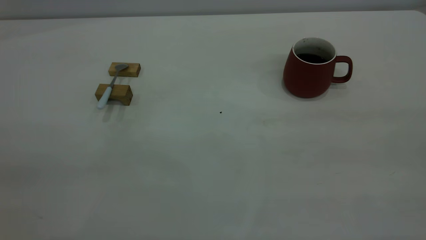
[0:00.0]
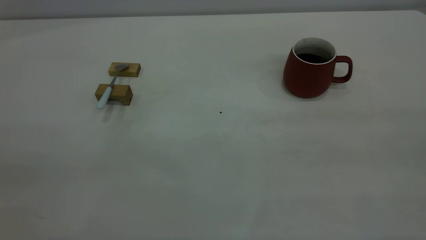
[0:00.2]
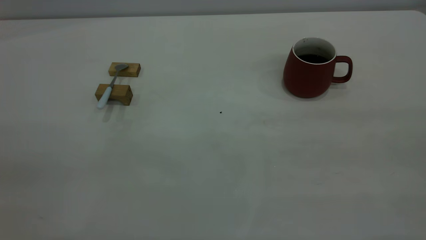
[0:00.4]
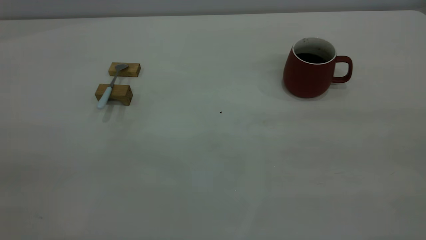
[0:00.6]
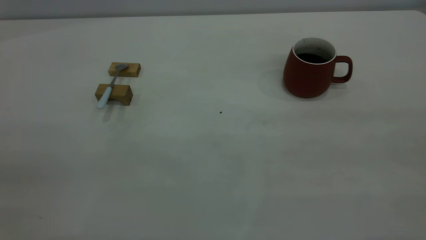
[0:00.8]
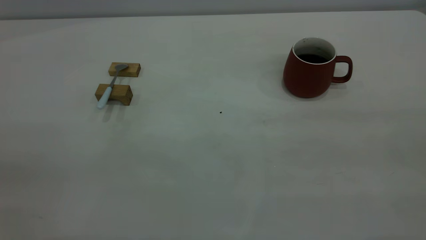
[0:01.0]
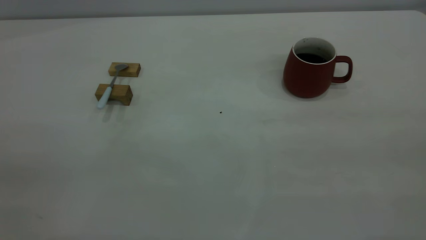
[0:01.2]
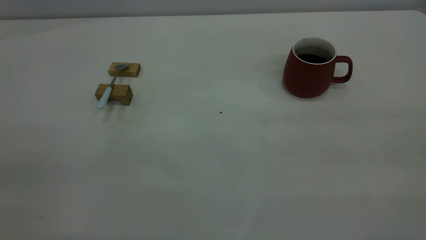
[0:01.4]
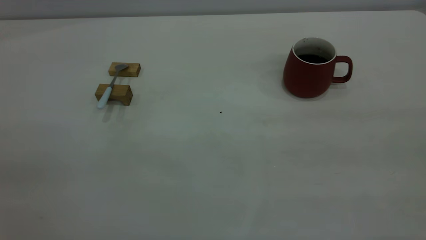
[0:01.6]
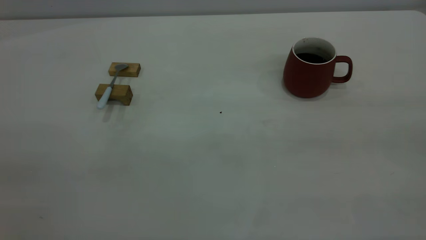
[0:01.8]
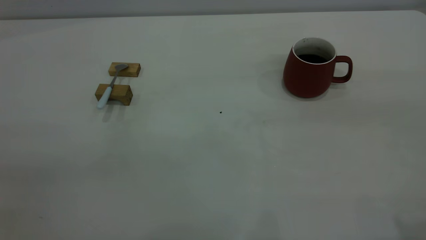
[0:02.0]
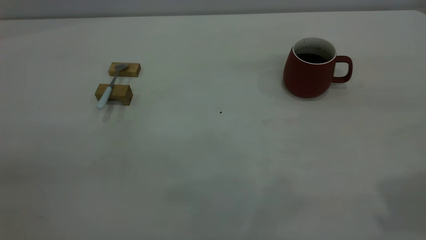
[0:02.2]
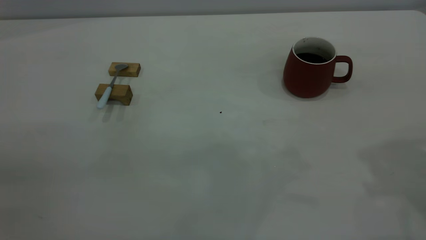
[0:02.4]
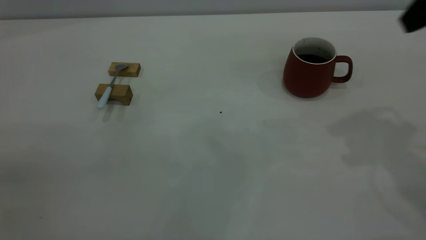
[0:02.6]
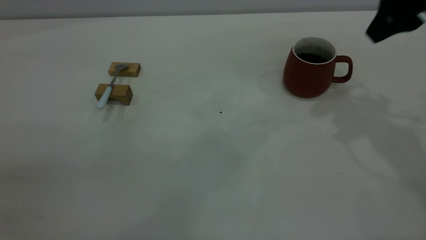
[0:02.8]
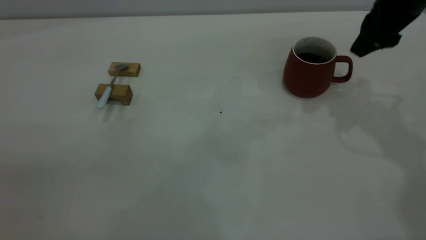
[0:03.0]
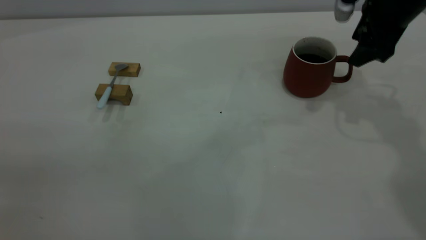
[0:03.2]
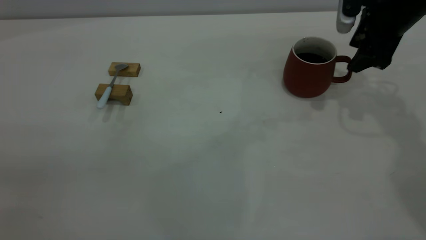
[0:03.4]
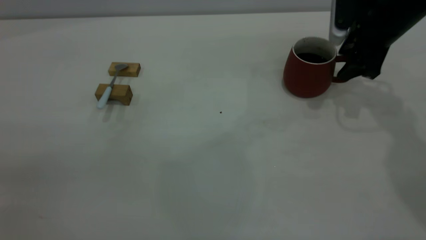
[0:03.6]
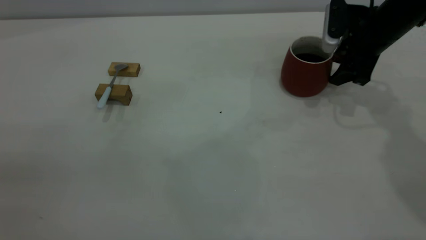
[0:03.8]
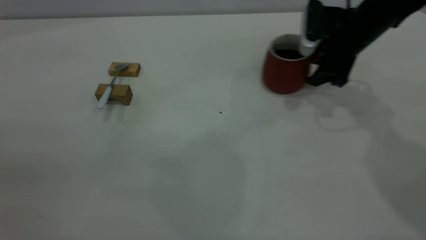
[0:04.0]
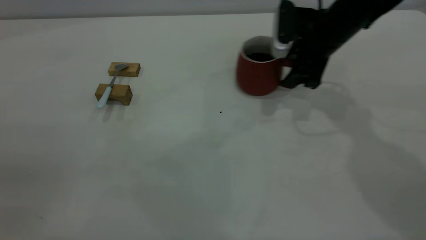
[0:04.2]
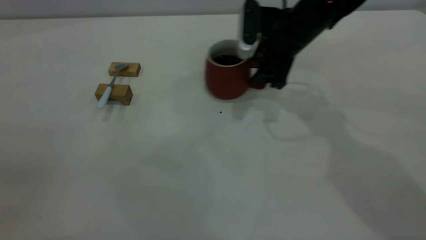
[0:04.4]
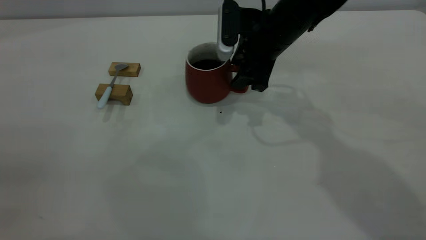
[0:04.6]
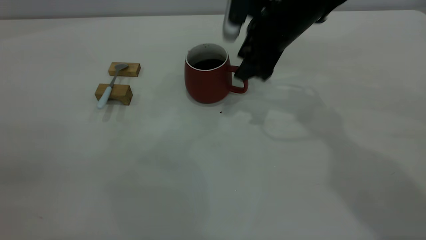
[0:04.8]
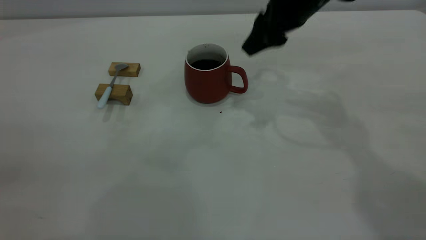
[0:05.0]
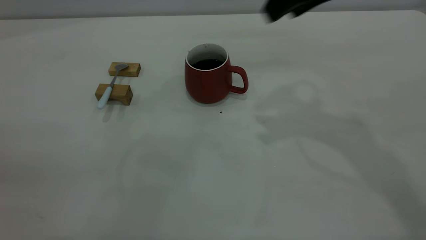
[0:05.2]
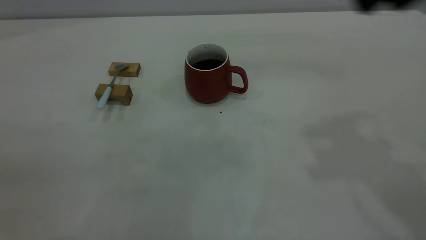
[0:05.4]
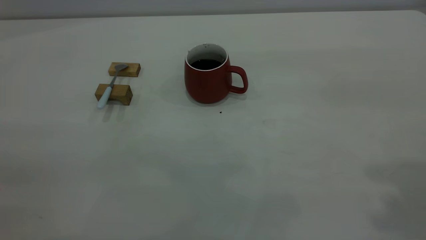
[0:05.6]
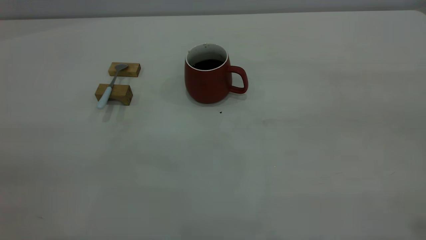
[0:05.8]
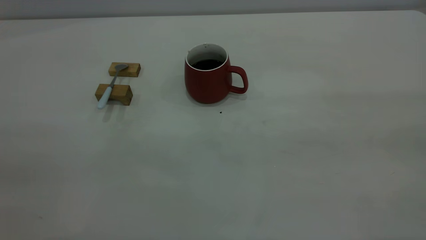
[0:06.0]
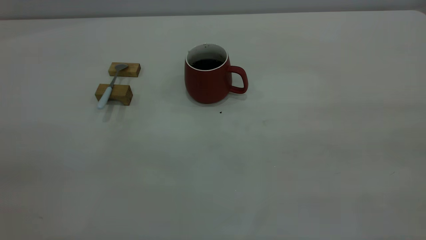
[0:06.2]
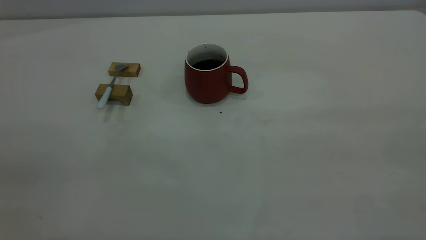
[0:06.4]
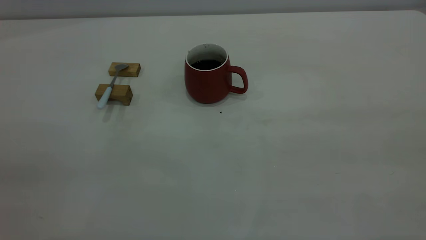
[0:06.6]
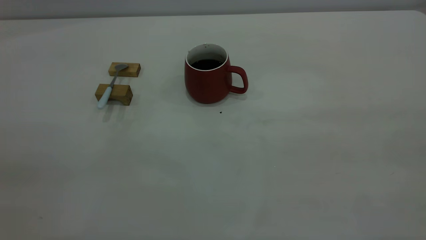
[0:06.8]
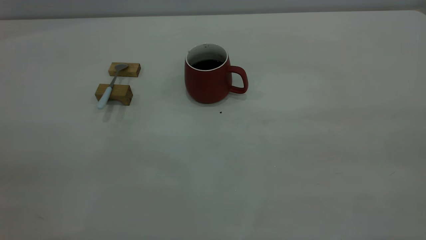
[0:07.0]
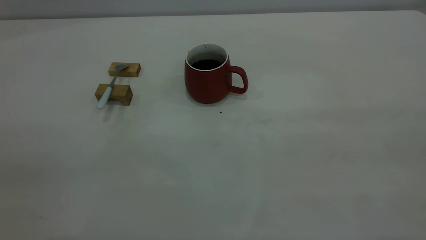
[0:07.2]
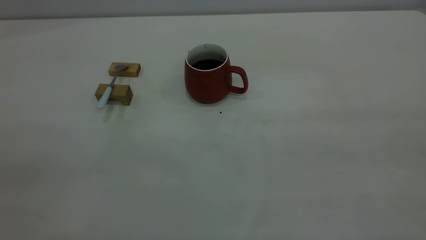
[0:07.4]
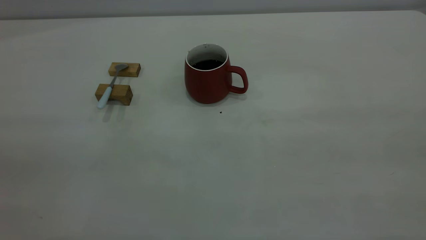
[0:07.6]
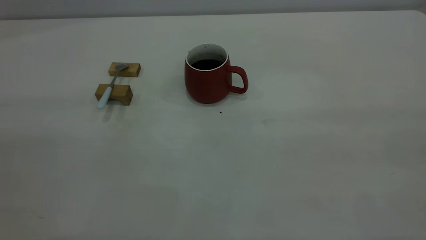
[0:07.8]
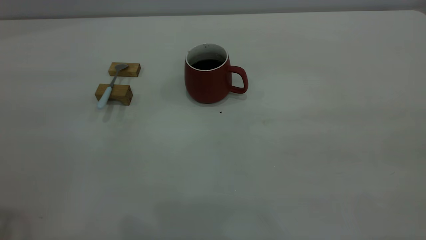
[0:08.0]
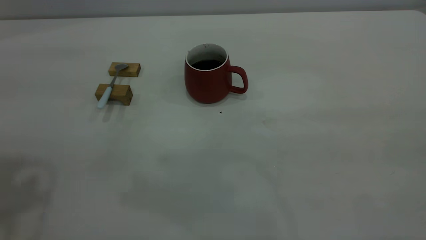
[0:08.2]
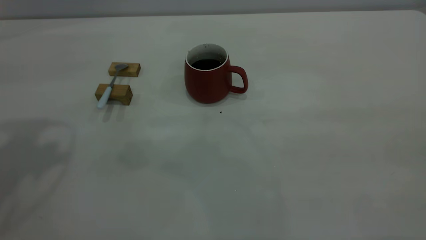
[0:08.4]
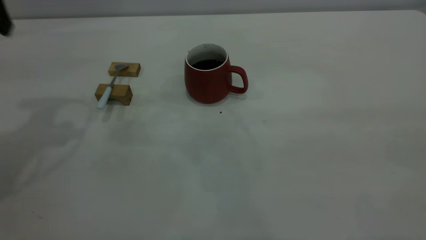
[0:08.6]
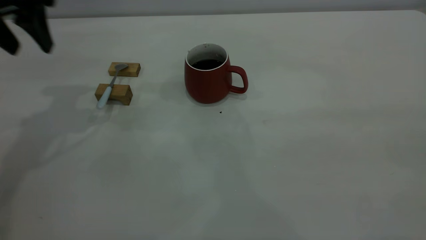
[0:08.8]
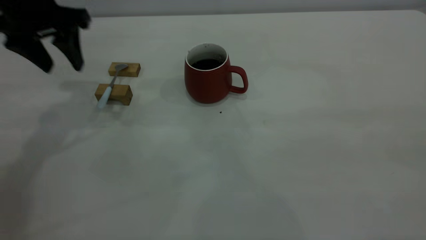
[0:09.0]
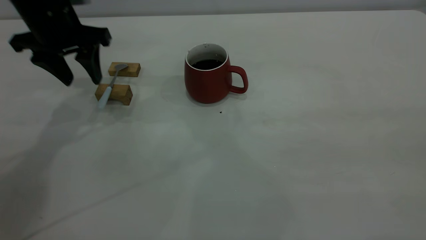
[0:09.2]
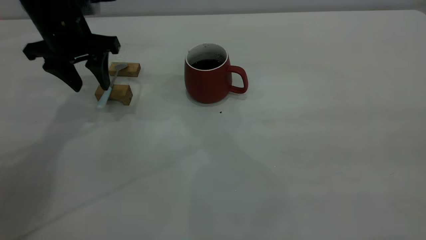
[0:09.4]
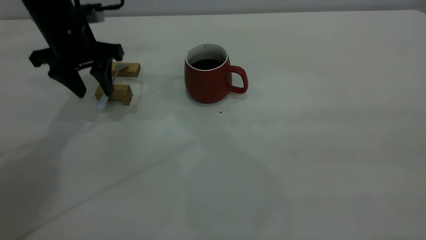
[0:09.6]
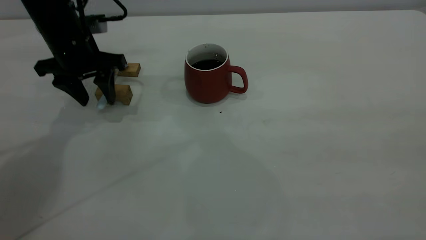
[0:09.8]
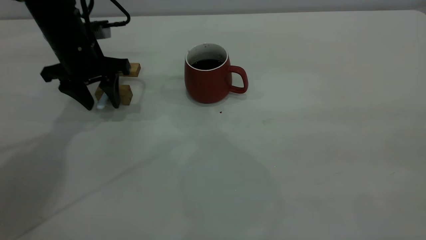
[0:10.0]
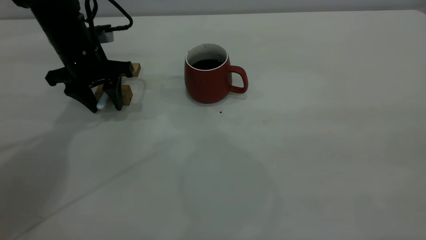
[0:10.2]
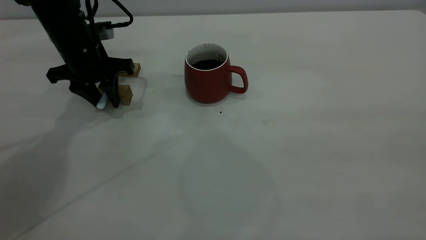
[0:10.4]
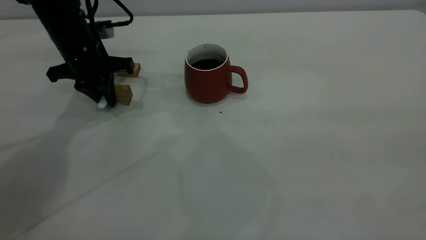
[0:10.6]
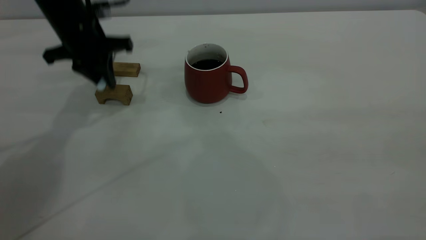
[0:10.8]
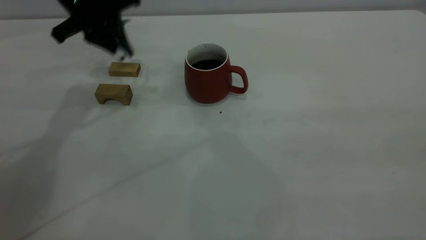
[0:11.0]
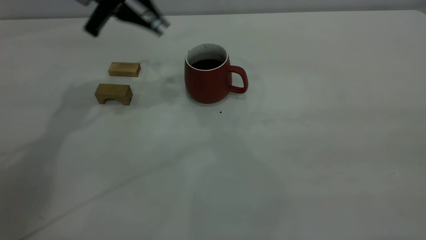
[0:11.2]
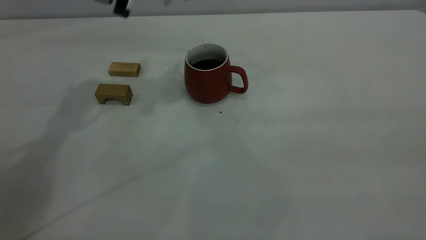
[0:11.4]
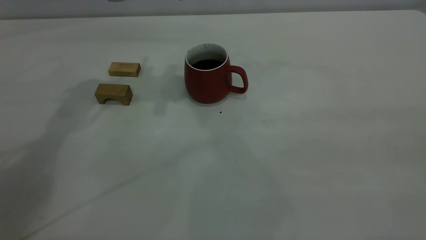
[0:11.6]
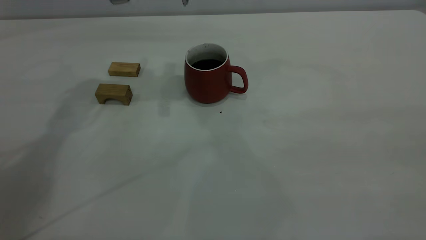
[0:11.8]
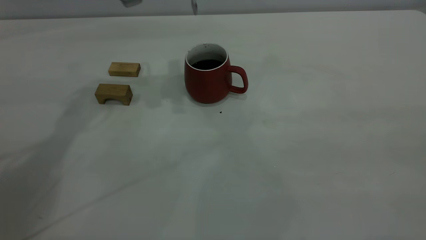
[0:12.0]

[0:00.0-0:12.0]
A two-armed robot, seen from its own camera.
Step, 0:00.0 to 0:05.0: Move the cup with coffee to the center of view.
Step, 0:05.2 to 0:11.0: Pick up the spoon.
0:00.0 to 0:01.6: Both grippers stay put.
0:01.6 to 0:03.0: The right gripper heads forward and downward, covering some 40 cm.
0:03.0 to 0:04.4: The right gripper is displaced to the left and downward by roughly 15 cm, and closes up.
0:04.4 to 0:06.0: The right gripper shifts roughly 50 cm backward, upward and to the right.
0:07.6 to 0:09.0: The left gripper shifts roughly 40 cm forward and downward.
0:09.0 to 0:10.4: The left gripper travels downward by about 10 cm, and closes up.
0:10.4 to 0:12.0: The left gripper travels upward and to the right by approximately 20 cm, and closes up.

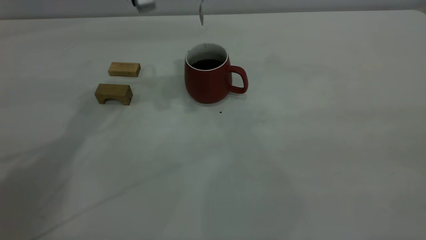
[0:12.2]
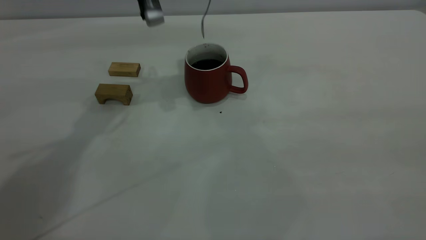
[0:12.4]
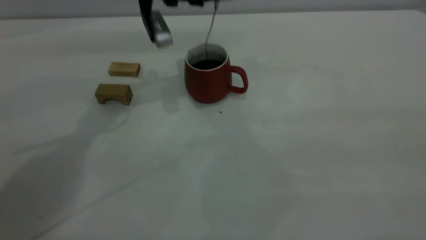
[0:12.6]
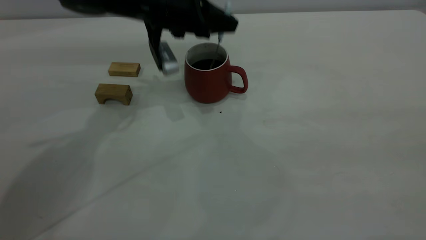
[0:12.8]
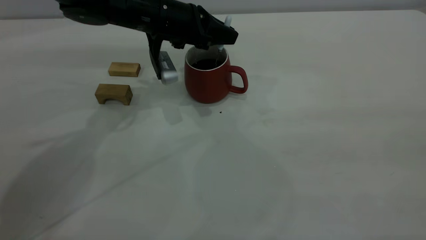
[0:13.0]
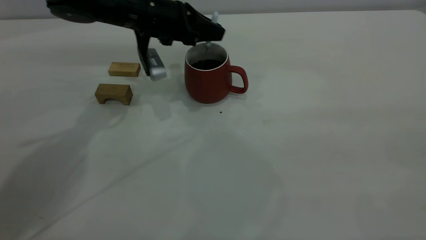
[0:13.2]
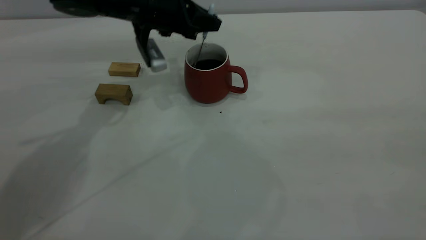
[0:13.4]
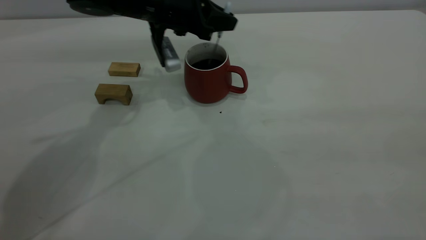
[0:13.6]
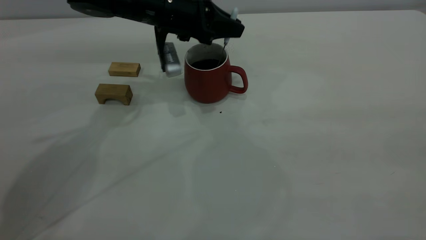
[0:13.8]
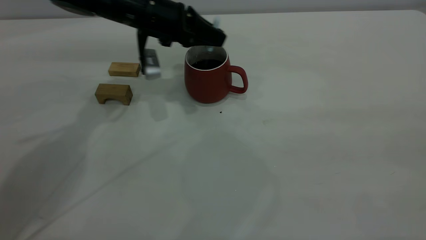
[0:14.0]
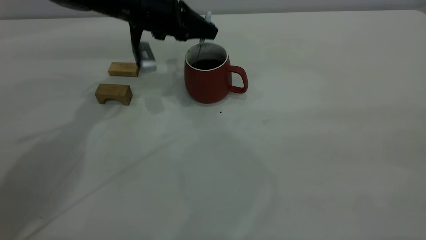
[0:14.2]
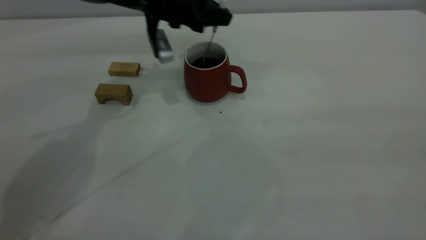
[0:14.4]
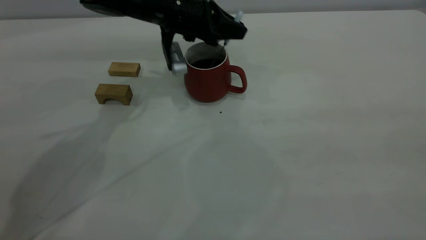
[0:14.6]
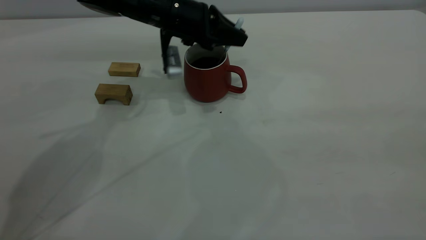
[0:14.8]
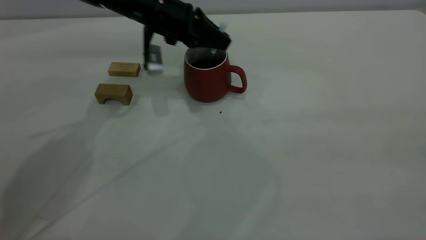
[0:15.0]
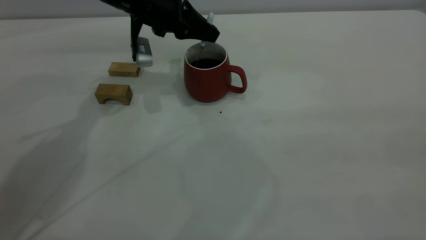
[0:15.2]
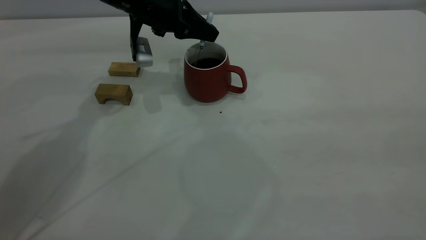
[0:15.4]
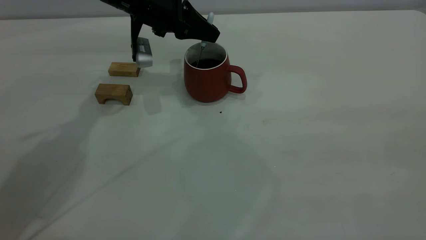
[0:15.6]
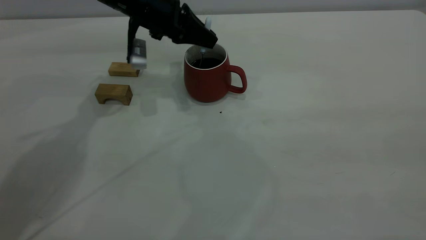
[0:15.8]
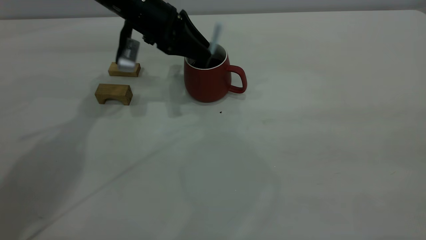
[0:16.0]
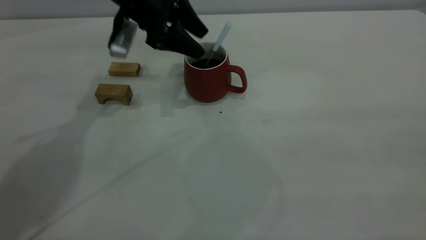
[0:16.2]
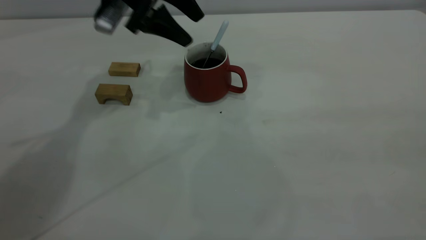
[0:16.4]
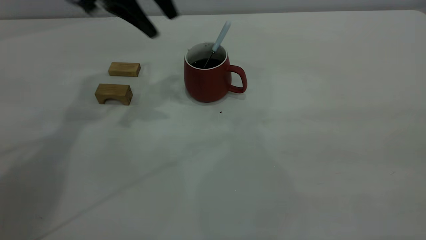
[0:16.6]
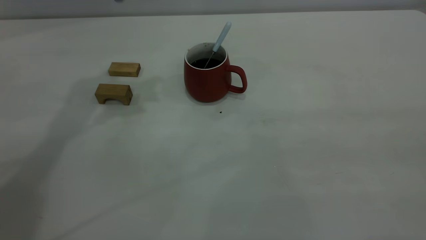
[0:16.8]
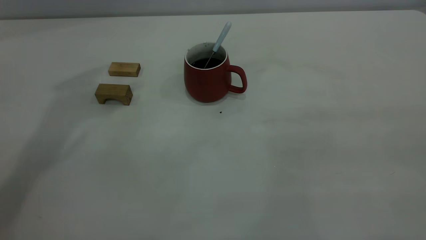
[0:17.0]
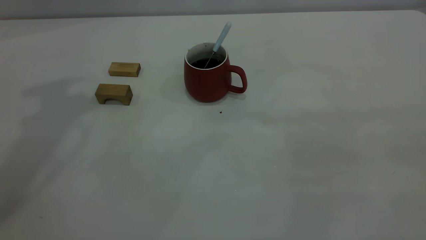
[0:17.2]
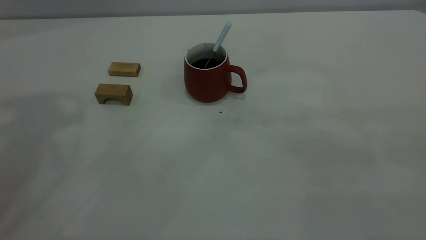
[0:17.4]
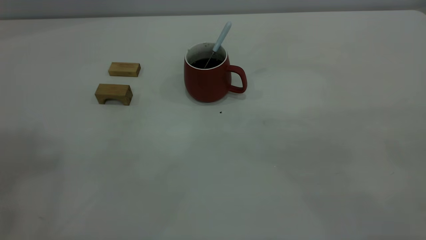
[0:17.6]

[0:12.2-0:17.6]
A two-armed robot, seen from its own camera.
Step, 0:12.2 to 0:16.4: Stir the coffee in the cup.
0:12.2 to 0:13.6: The left gripper goes approximately 10 cm downward.
0:13.6 to 0:15.0: The grippers move only a little.
0:15.0 to 0:16.2: The left gripper opens.
0:16.2 to 0:17.6: The left gripper shifts about 50 cm upward and backward, and closes up.
